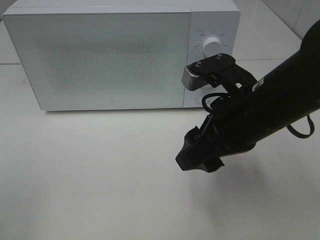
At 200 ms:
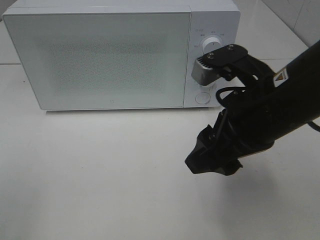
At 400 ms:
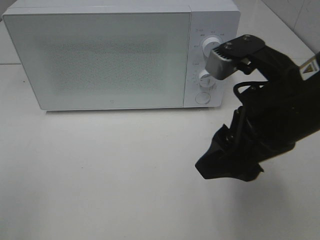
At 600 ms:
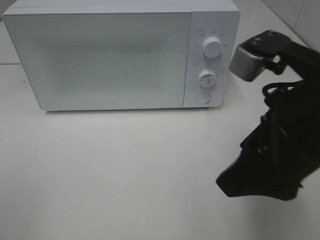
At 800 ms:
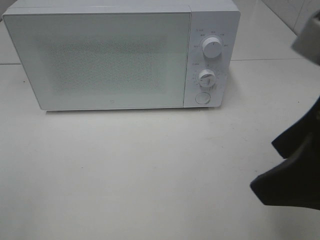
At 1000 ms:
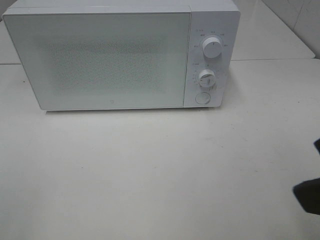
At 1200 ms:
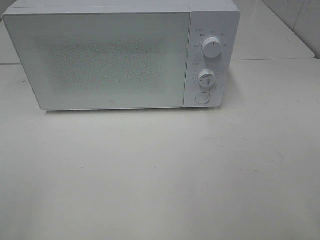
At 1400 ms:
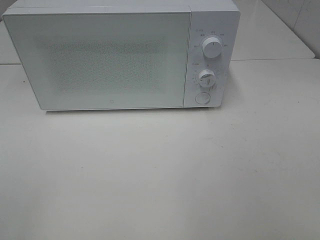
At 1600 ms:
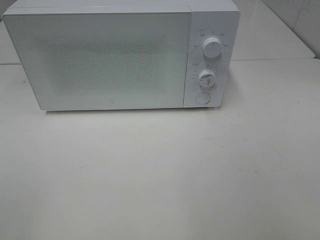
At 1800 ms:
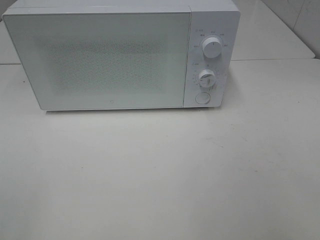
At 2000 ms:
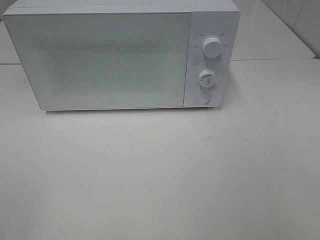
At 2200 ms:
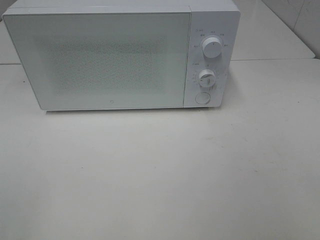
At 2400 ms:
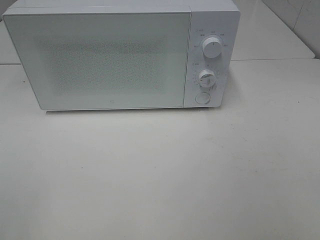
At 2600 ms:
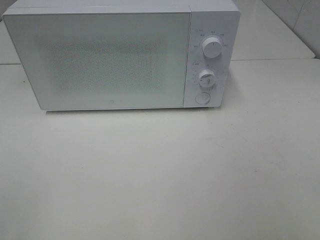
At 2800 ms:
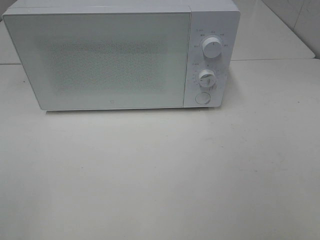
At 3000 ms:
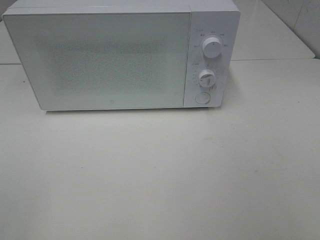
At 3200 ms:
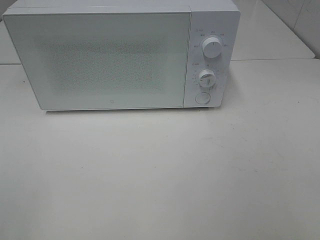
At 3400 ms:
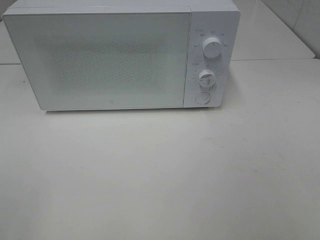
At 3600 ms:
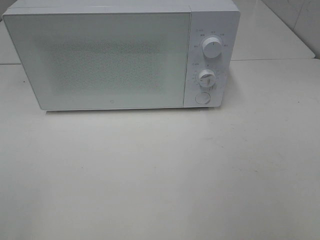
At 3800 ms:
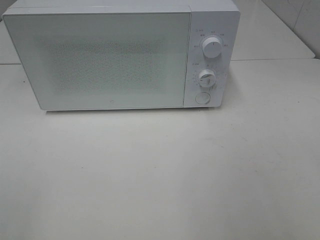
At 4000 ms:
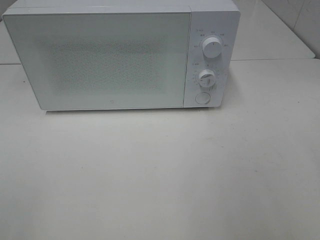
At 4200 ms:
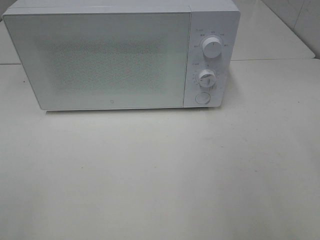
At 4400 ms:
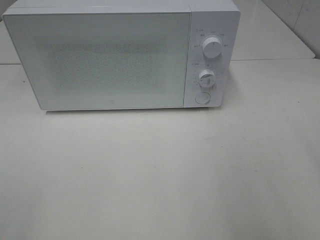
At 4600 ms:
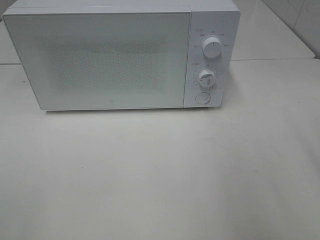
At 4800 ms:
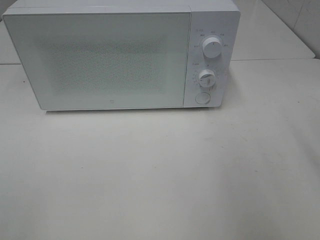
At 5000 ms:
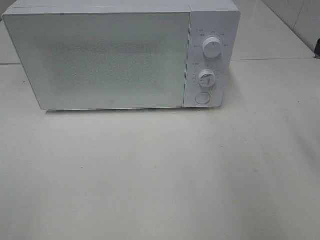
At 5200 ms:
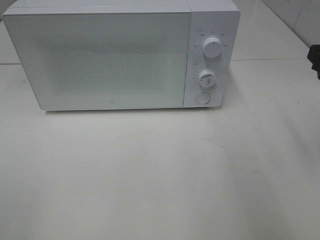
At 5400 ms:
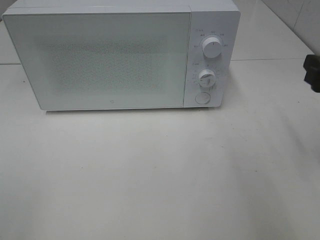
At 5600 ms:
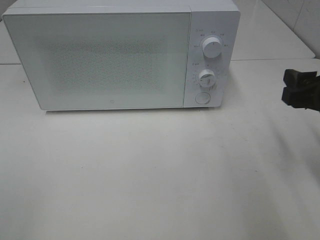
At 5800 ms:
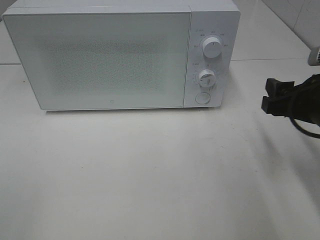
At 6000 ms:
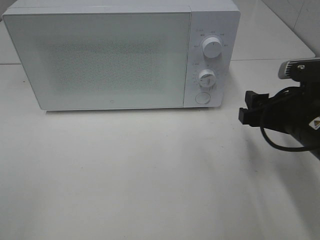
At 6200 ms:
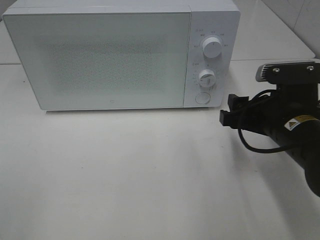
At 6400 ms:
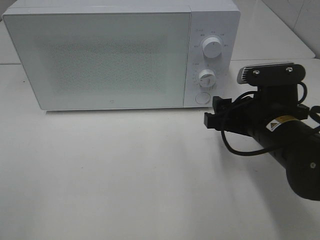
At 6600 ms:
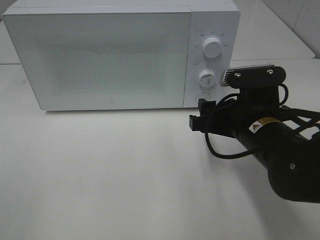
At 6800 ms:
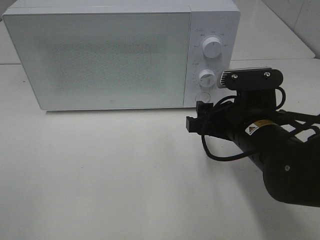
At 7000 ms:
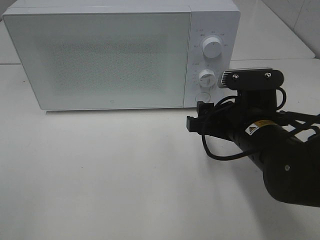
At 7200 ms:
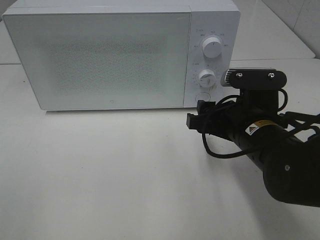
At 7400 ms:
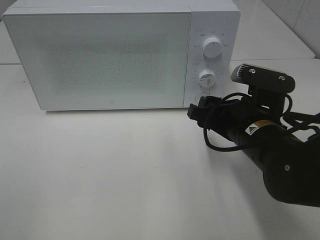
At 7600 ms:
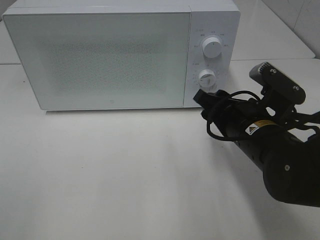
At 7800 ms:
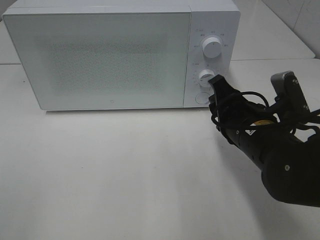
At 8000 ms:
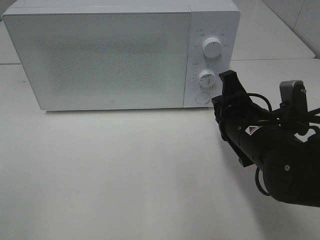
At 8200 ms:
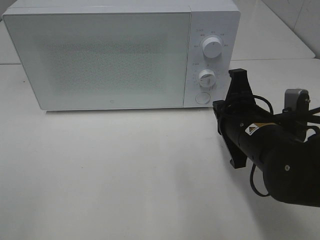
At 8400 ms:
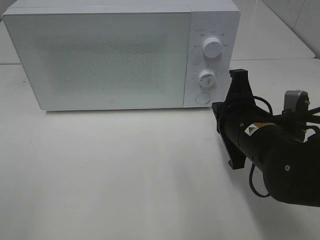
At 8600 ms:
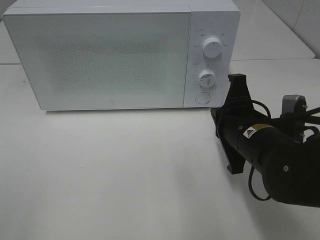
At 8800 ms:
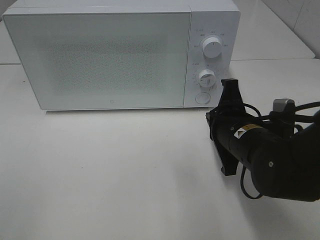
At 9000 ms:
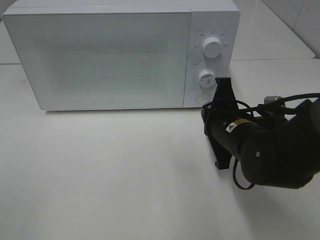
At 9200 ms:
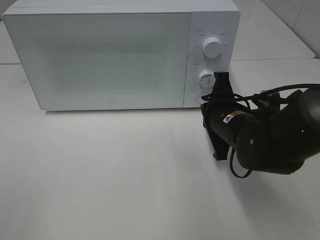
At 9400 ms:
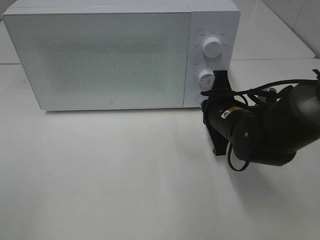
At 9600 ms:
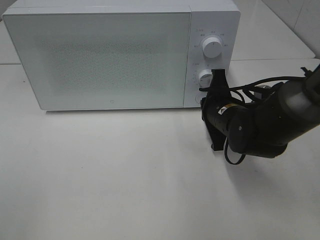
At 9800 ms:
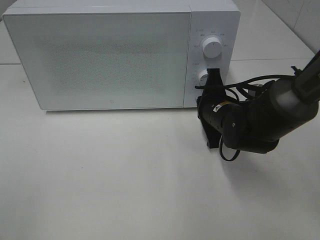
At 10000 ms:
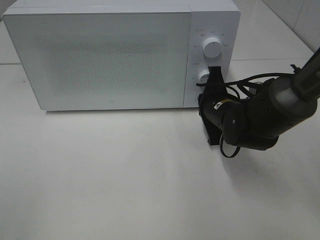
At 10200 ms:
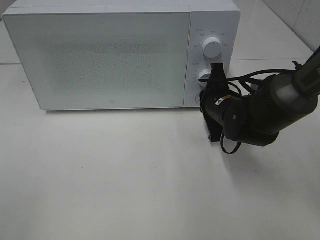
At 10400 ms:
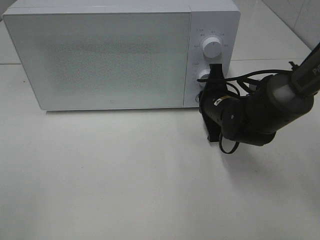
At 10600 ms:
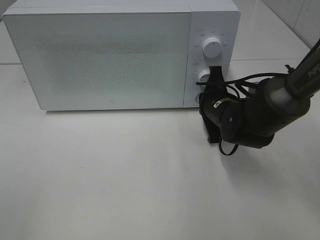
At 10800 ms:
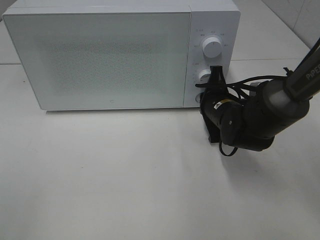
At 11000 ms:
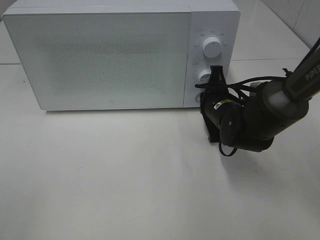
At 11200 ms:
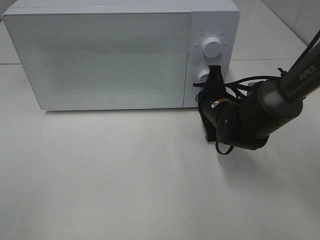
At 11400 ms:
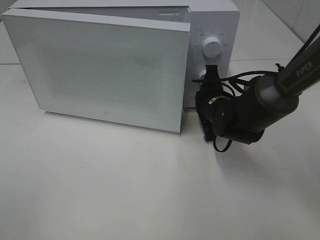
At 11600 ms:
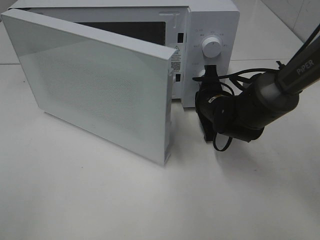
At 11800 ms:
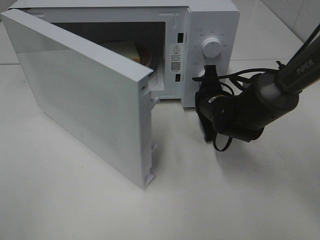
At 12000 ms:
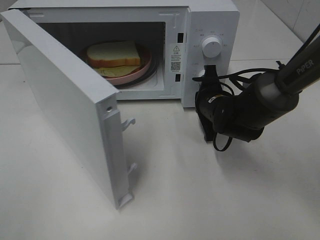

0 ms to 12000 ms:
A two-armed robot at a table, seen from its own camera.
Task of the whole recording: Heat Sandwich.
0 ms to 1600 ms: The right gripper shifts about 25 cm backward and to the right.
4400 ms to 6000 ms: The right gripper goes some 20 cm downward, forward and to the left.
6000 ms to 7600 ms: The right gripper shifts roughly 5 cm to the left.
7600 ms to 9000 ms: The right gripper closes its fingers.
9000 ms to 10400 ms: The right gripper heads forward, covering about 10 cm.

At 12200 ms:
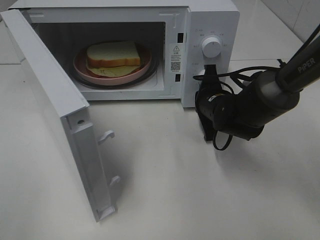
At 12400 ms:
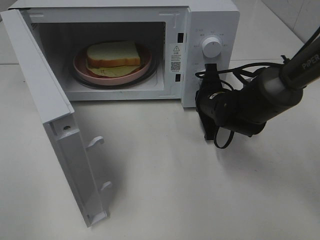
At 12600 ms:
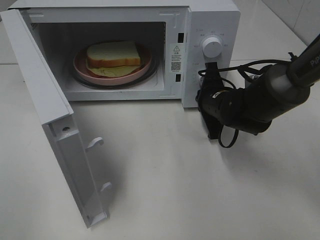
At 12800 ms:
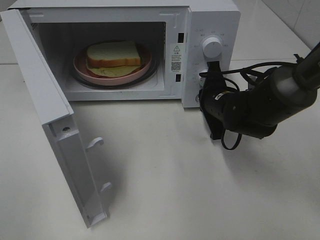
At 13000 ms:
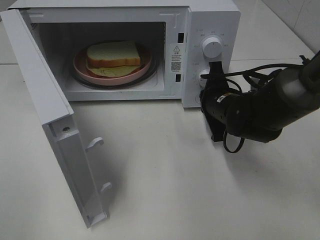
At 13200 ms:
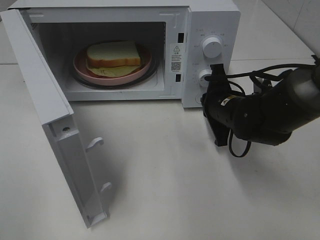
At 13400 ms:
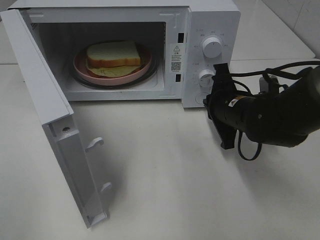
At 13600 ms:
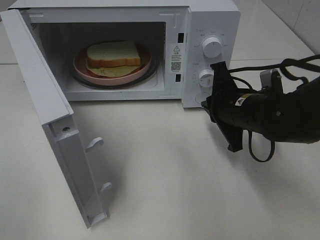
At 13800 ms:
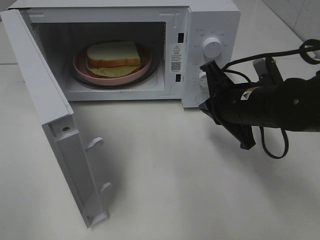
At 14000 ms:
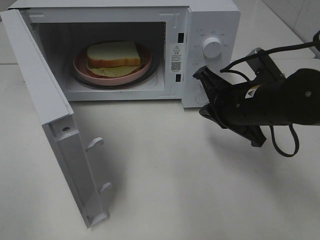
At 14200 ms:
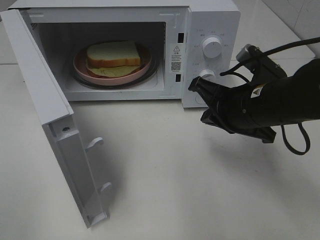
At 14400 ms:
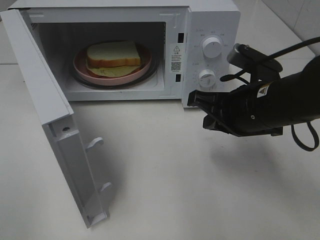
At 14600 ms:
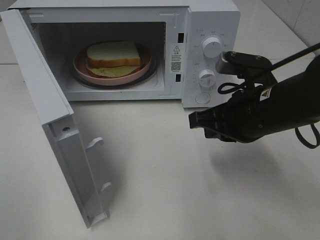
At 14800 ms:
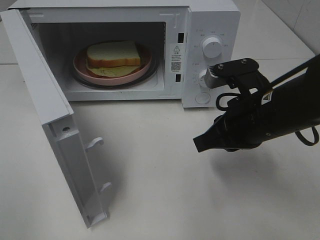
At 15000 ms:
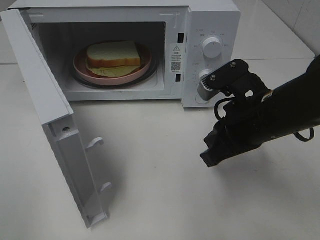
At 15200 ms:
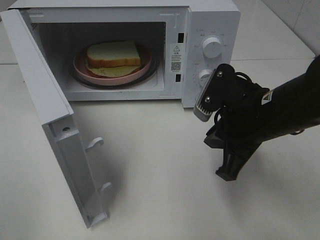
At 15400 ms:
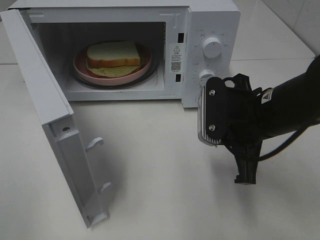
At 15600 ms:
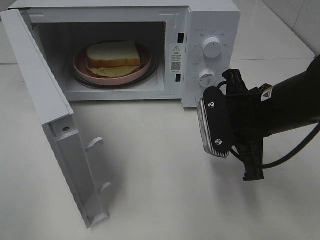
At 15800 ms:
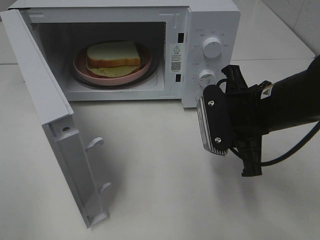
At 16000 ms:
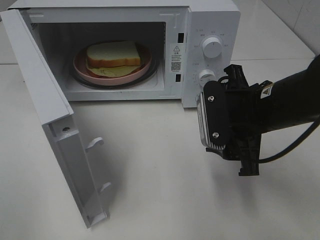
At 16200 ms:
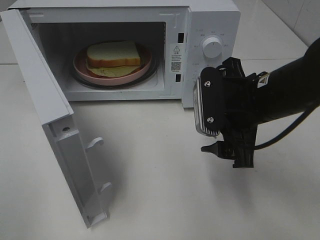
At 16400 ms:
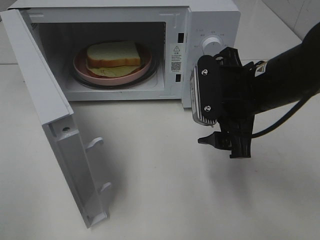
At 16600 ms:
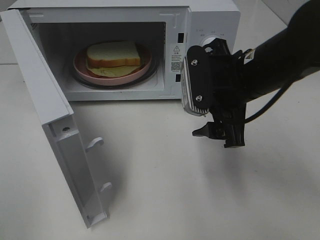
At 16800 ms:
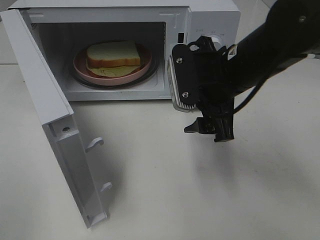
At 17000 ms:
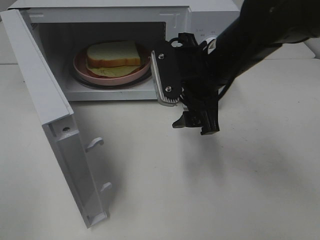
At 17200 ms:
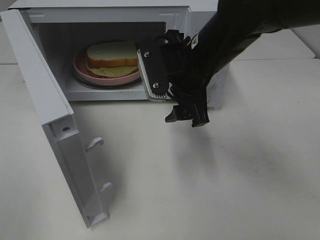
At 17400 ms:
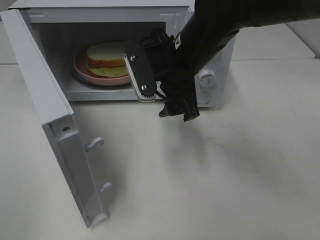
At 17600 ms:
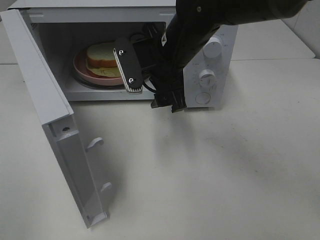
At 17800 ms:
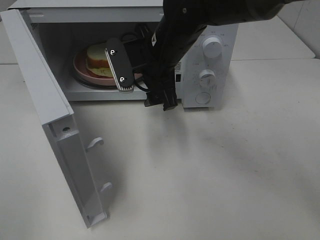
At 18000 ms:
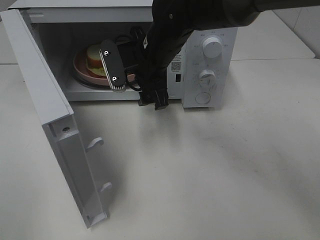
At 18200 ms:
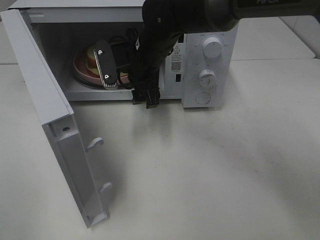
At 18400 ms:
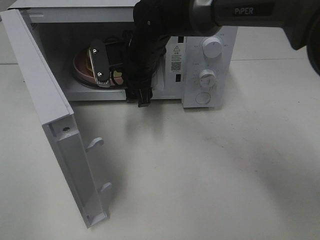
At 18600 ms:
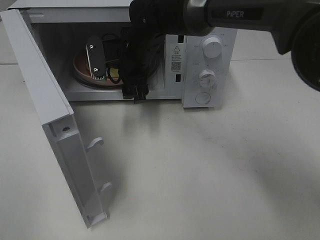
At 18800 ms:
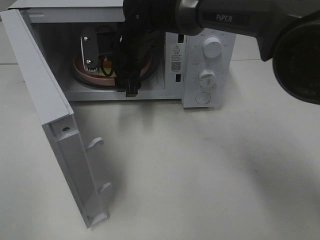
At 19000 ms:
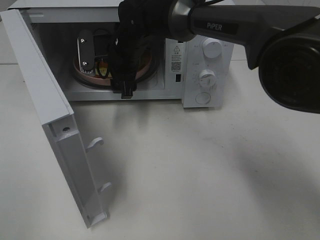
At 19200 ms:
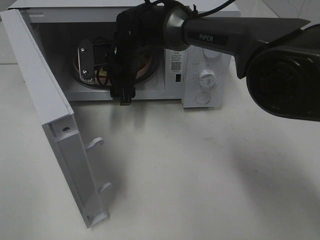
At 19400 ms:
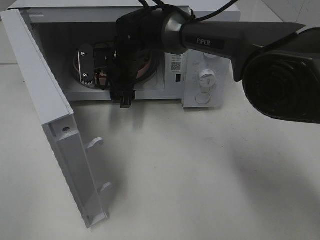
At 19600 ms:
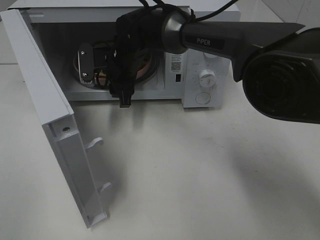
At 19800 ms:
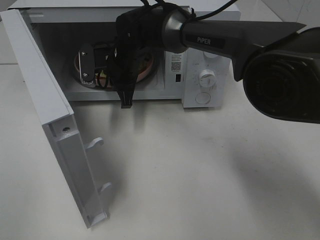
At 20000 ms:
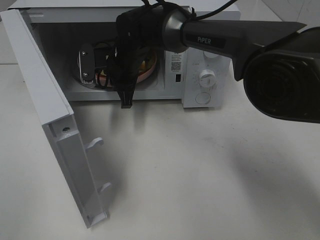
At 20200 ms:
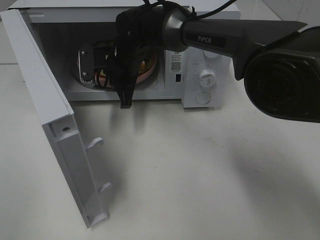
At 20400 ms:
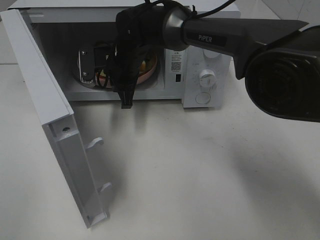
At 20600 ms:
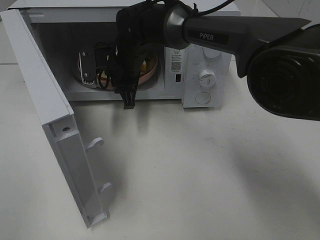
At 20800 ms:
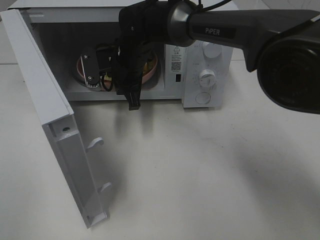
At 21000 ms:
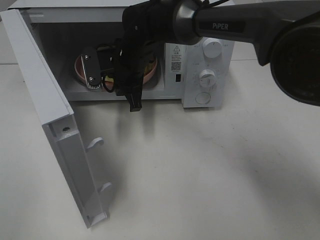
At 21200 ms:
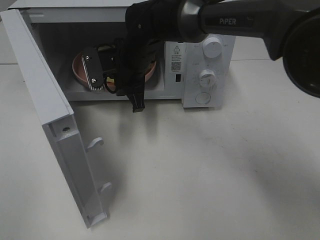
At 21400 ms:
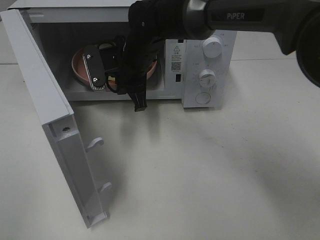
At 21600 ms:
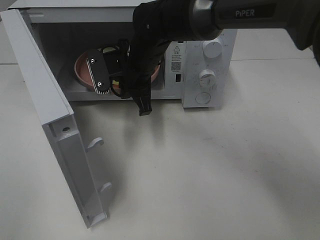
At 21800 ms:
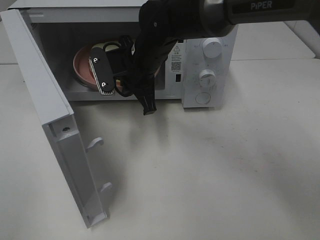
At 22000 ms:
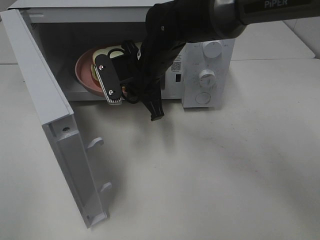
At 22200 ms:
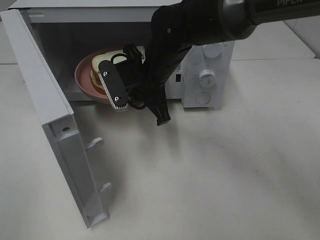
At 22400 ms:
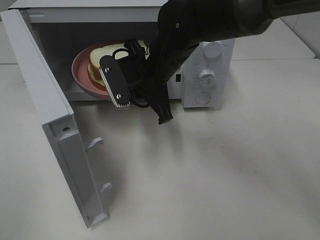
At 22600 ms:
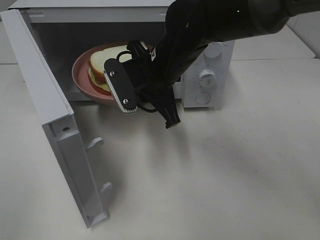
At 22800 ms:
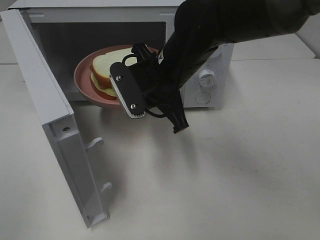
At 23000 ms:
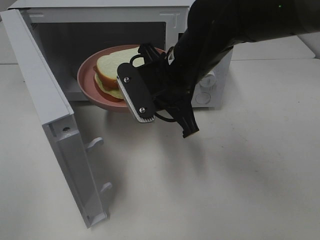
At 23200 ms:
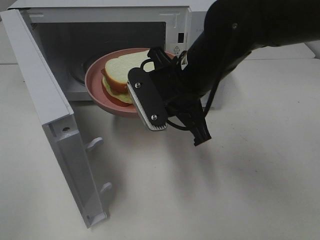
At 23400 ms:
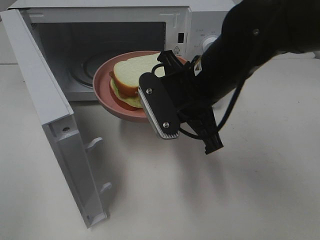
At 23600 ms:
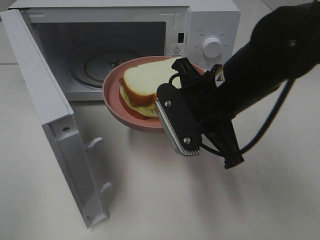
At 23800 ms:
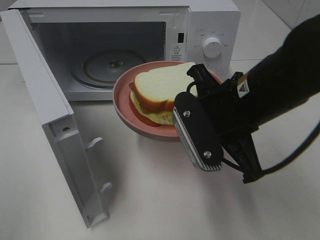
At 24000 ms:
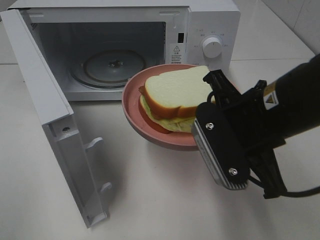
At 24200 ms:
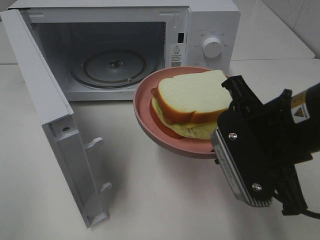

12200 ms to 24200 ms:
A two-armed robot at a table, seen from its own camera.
Task of the whole recording: Heat Sandwich.
Step, 13200 ms to 21200 ms: Right hand: grab the plate with the sandwich.
12200 ms to 13800 ms: The right gripper goes some 10 cm backward and upward.
13800 ms to 15200 ms: The right gripper ends up roughly 5 cm from where it was.
15200 ms to 16600 ms: The right gripper shifts by approximately 5 cm, and opens its fingers.
16600 ms to 18200 ms: The right gripper travels to the left and forward by some 20 cm.
18200 ms to 19800 ms: The right gripper shifts by approximately 5 cm, and closes its fingers.
19800 ms to 21200 ms: The grippers stay close to where they were, moving slightly.
21200 ms to 22600 ms: The right gripper heads backward and to the right, covering about 10 cm.
22600 ms to 24200 ms: The right gripper heads backward and to the right, covering some 20 cm.
